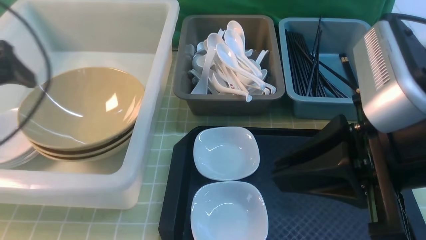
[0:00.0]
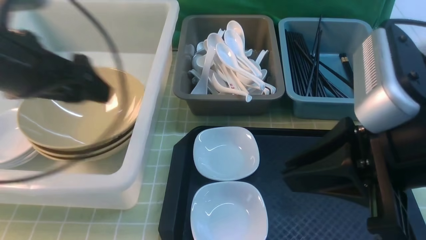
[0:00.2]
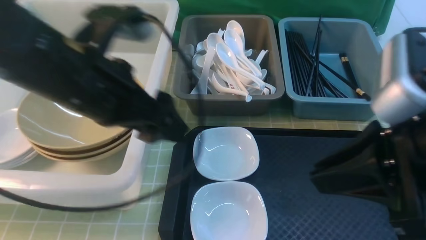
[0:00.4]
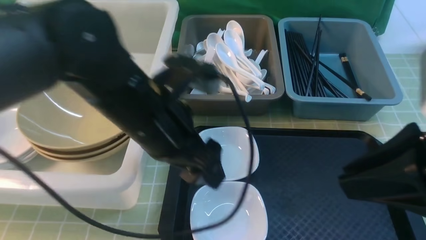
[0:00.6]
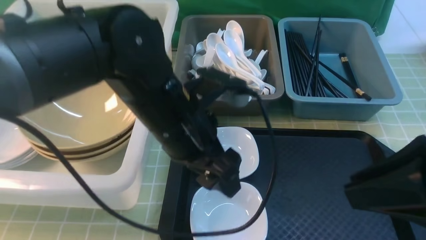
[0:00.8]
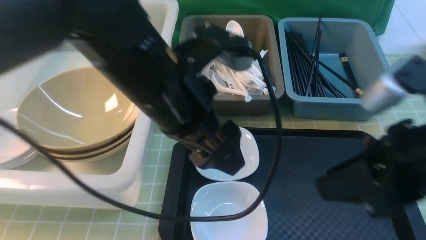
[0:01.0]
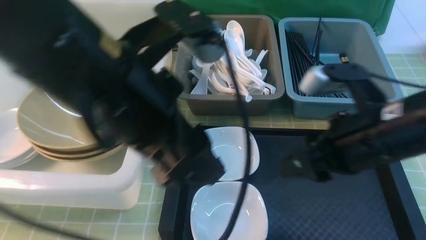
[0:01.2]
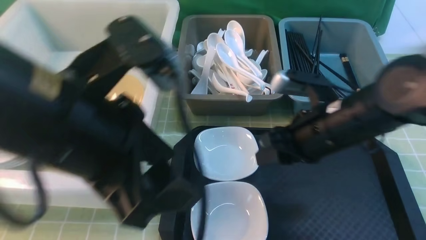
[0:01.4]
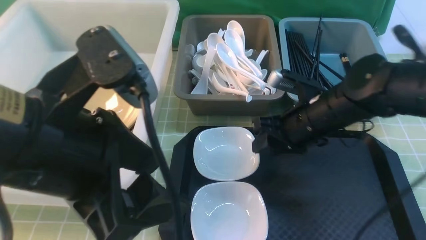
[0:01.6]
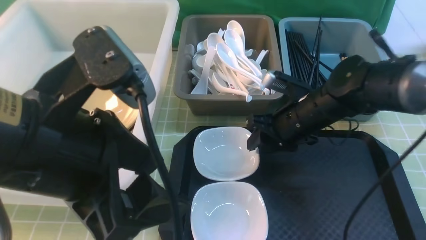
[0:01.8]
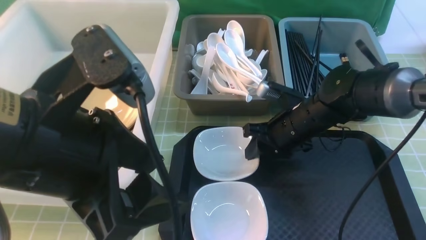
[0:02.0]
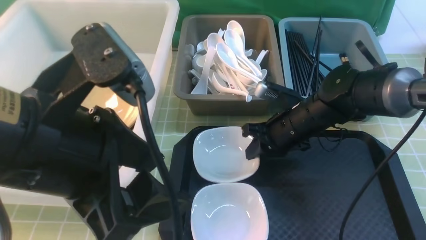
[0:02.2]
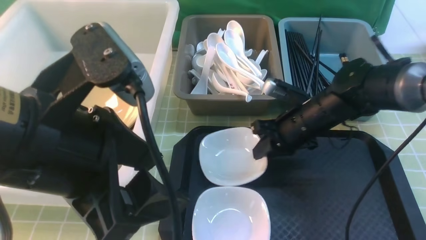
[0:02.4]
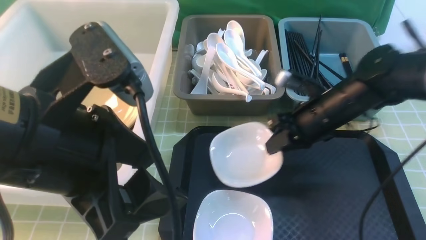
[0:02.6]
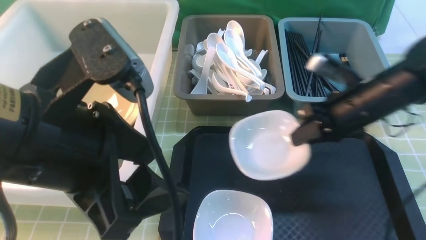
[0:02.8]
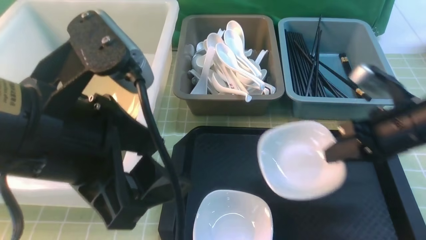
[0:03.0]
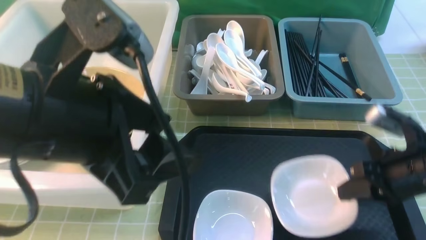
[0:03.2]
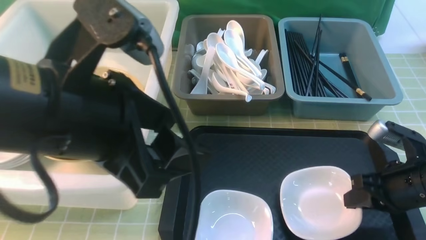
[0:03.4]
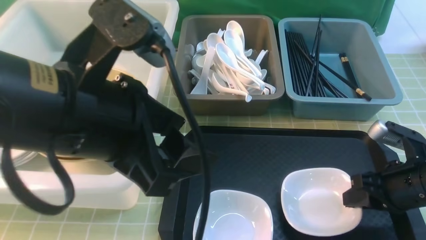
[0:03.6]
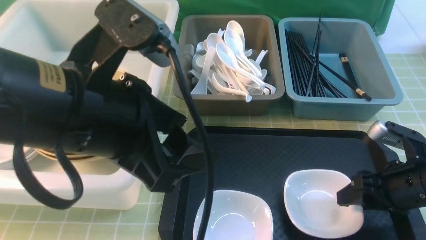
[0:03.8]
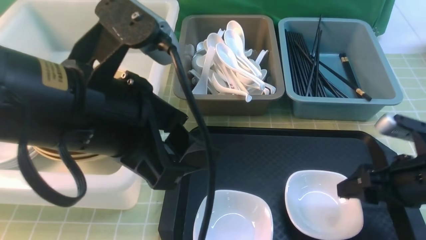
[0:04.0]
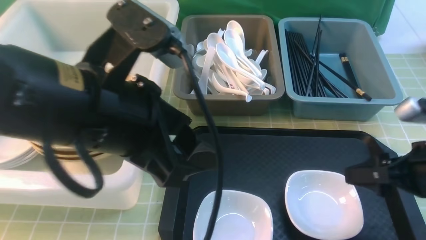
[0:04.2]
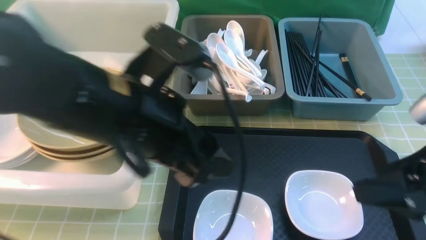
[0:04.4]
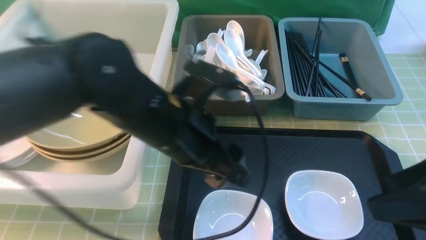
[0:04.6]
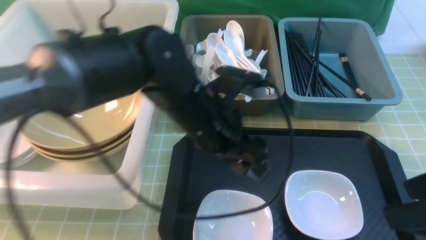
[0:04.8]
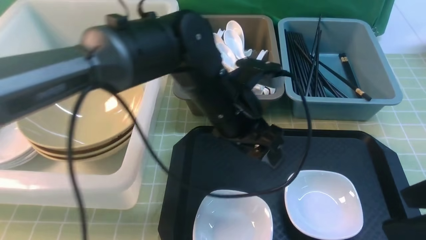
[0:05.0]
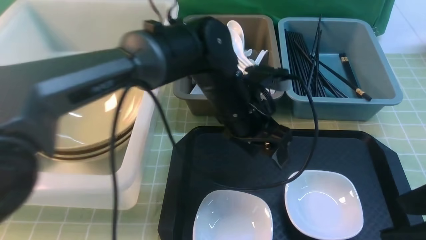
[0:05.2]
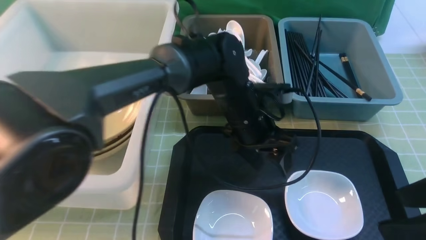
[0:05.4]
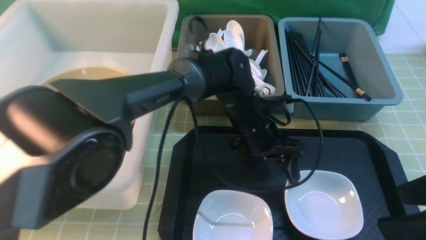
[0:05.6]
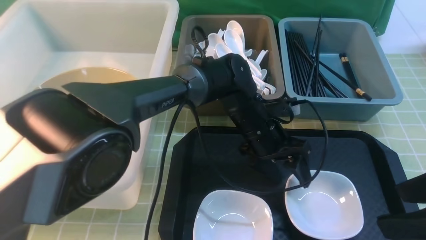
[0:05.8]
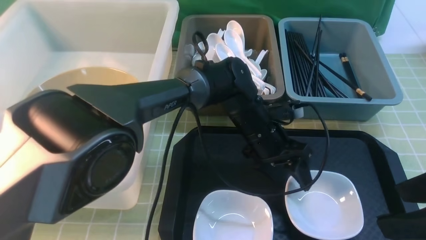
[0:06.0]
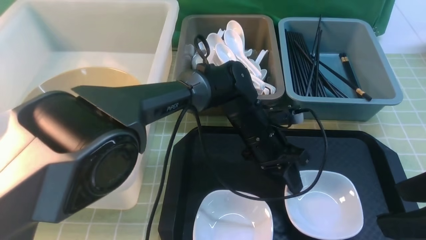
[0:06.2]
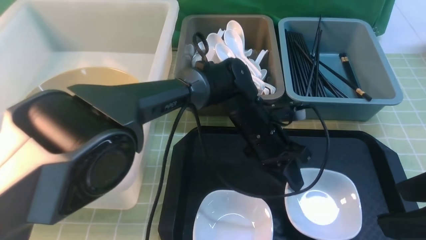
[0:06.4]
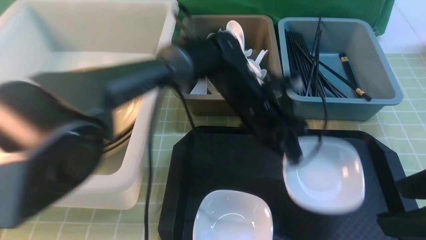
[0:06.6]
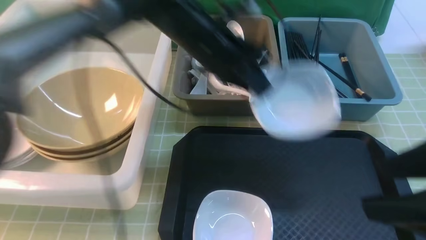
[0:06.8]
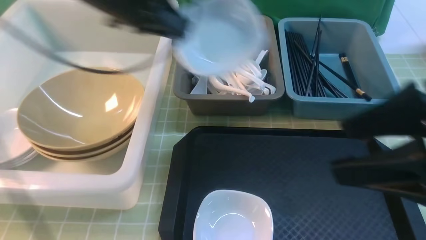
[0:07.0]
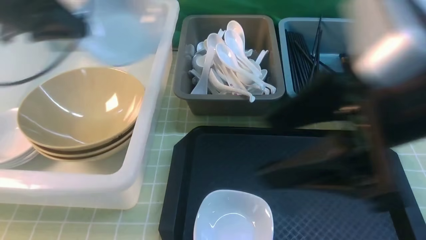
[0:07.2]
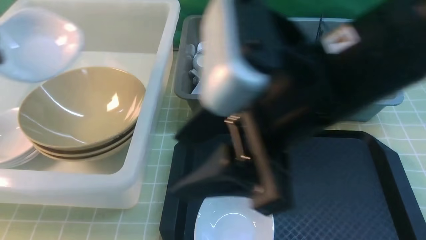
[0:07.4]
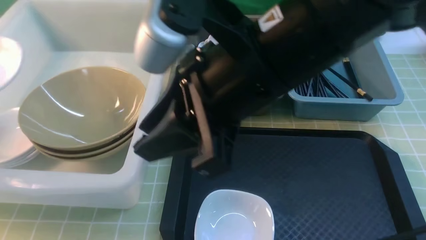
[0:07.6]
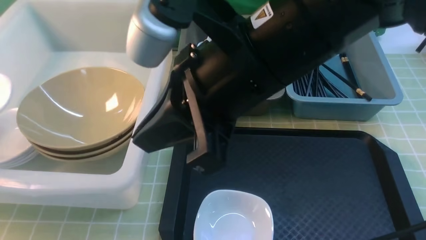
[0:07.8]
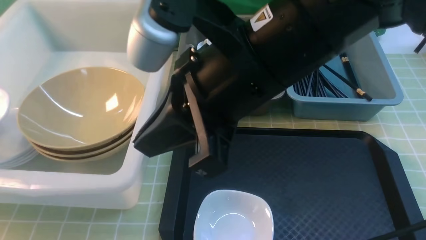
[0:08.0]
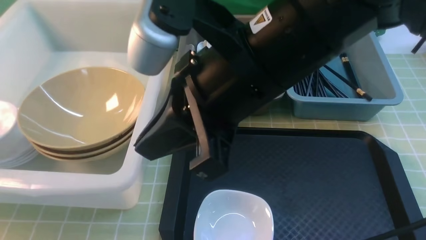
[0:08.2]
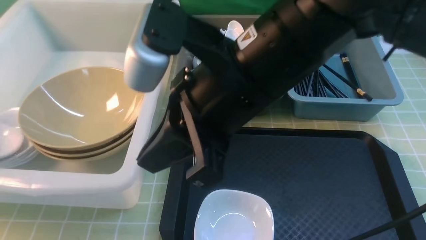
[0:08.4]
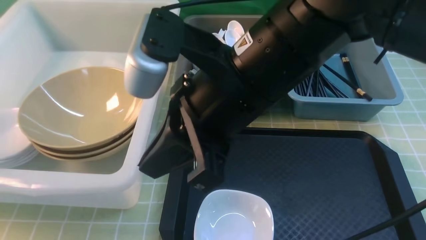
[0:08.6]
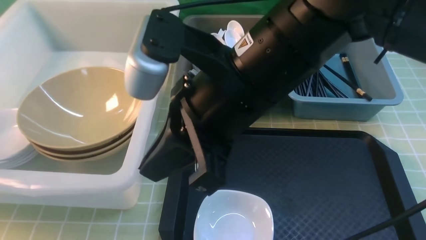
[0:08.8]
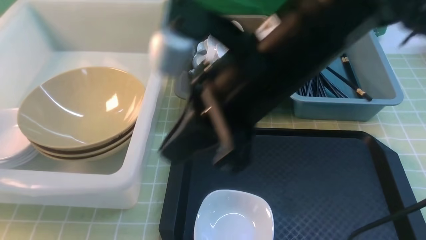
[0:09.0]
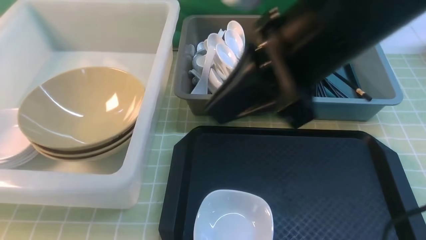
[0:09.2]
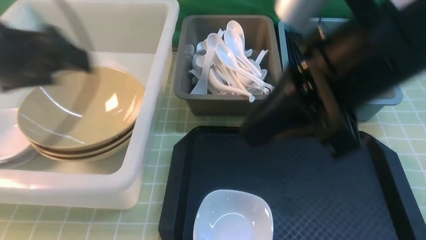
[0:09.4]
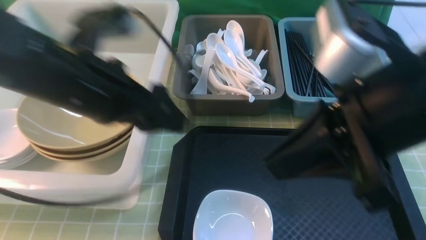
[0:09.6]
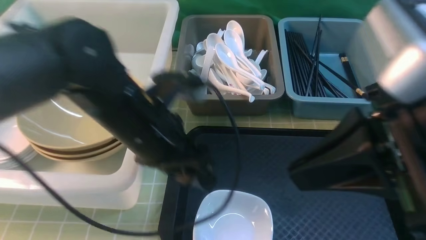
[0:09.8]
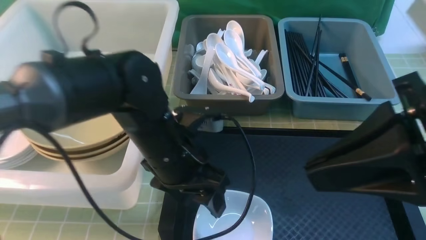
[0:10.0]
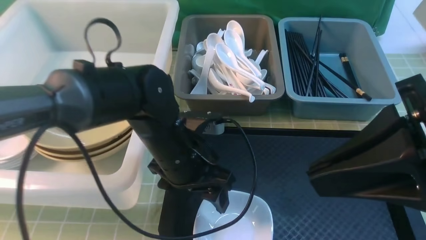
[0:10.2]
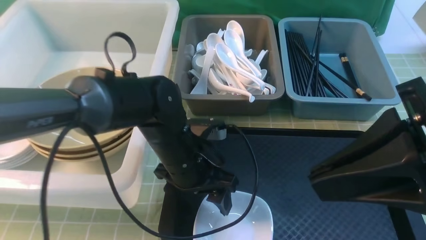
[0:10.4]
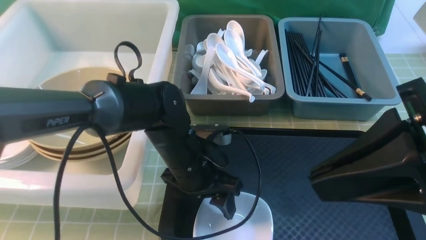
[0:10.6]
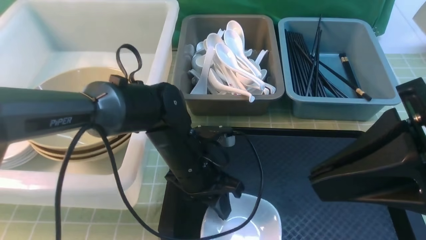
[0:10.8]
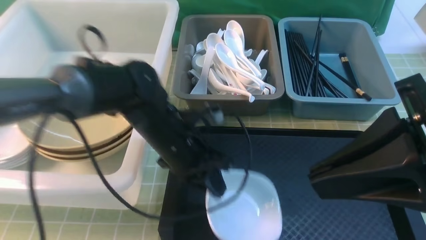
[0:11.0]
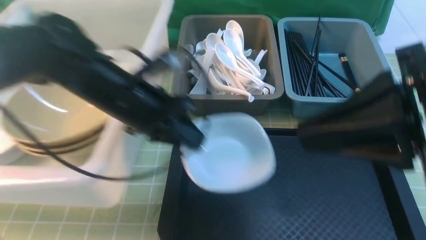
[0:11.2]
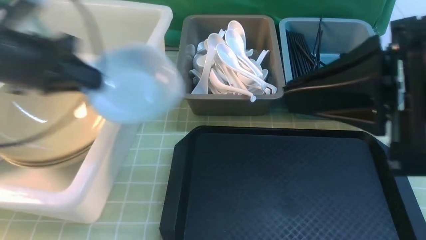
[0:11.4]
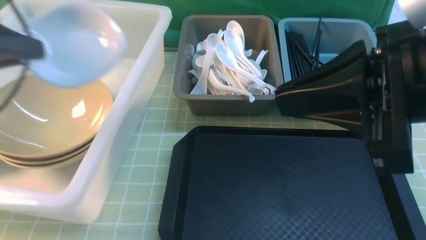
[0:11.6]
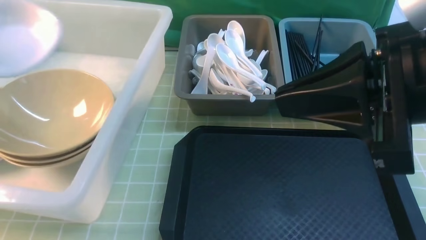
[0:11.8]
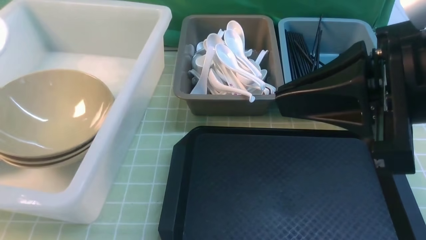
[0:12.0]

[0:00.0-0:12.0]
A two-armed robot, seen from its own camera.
Task of the whole recording: on green table put chopsticks spoon bowls plates into blue grey white boxes.
Step, 0:00.0 to 0:02.4: use the right arm to grab the plate.
Step, 0:02.8 to 0:04.0: use the right arm to put the plate on the tray.
Step, 0:04.2 to 0:06.4: use the left arm to grab the plate.
Step, 0:06.8 to 0:08.8: use the left arm to put the plate into the large storage box on the left.
Step, 0:09.0 to 0:10.8: use the left arm to grab the plate.
0:00.0 to 0:01.6: The left gripper heads to the right and backward, covering approximately 20 cm; the right gripper is displaced forward and downward by roughly 25 cm, and opens its fingers.
0:01.6 to 0:03.0: The right gripper shifts about 15 cm to the right and backward, and closes up.
0:03.0 to 0:04.4: The right gripper is displaced backward and upward by roughly 10 cm, and opens its fingers; the left gripper is displaced forward, downward and to the right by roughly 10 cm.
0:04.4 to 0:06.0: The left gripper moves downward, to the right and forward, roughly 25 cm; the right gripper shifts by about 5 cm.
0:06.0 to 0:07.6: The left gripper travels to the left by some 50 cm, and closes. The right gripper shifts roughly 20 cm to the left, and closes up.
0:07.6 to 0:09.0: The left gripper opens. The right gripper closes up.
0:09.0 to 0:10.4: The left gripper moves to the right, some 35 cm. The right gripper shifts about 15 cm to the right and backward.
0:10.4 to 0:12.0: The left gripper moves to the left and upward, about 40 cm, and closes.

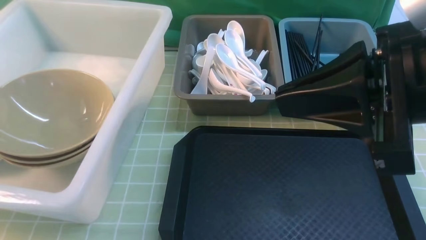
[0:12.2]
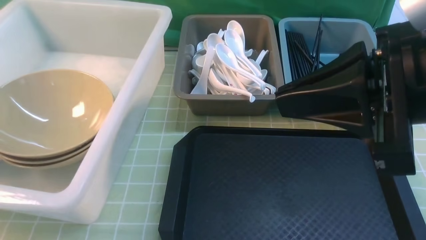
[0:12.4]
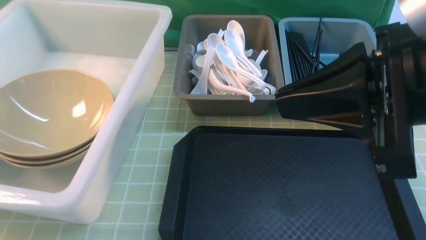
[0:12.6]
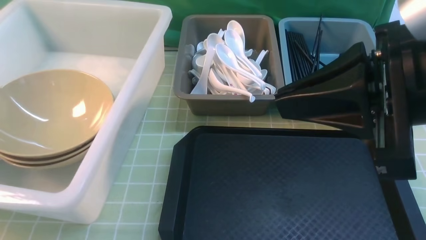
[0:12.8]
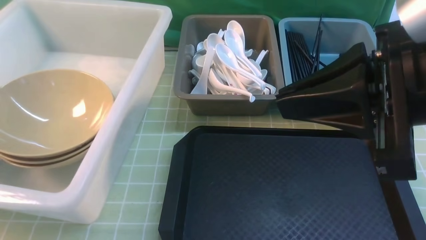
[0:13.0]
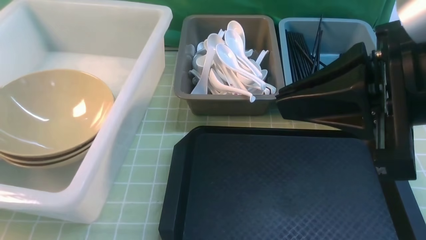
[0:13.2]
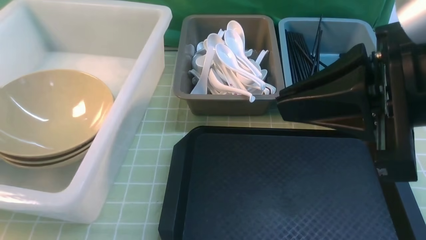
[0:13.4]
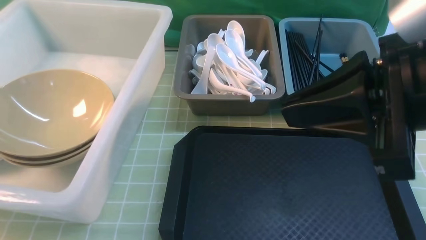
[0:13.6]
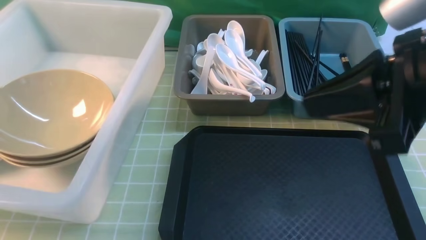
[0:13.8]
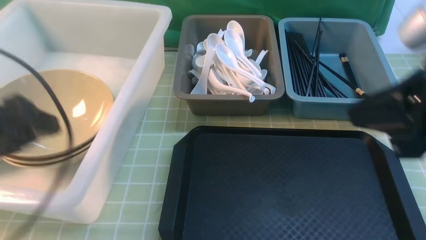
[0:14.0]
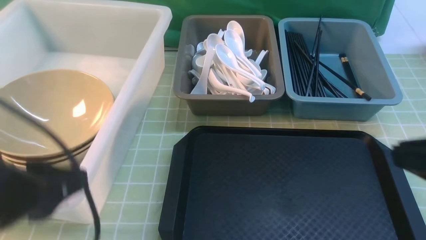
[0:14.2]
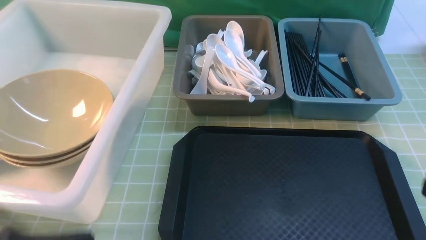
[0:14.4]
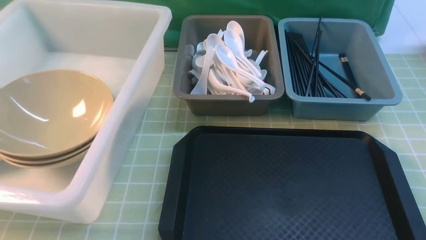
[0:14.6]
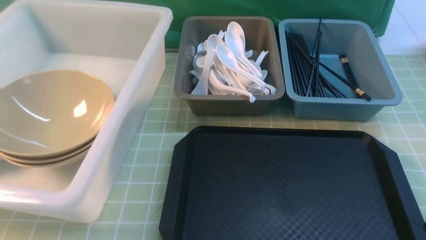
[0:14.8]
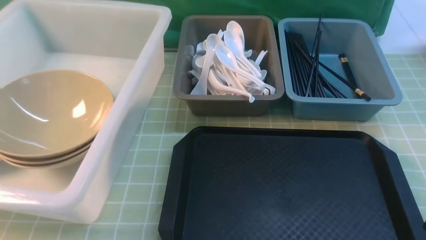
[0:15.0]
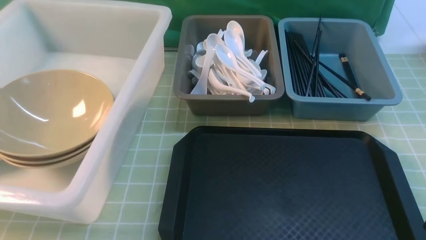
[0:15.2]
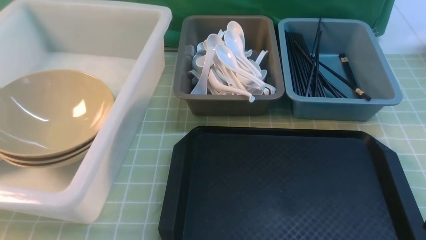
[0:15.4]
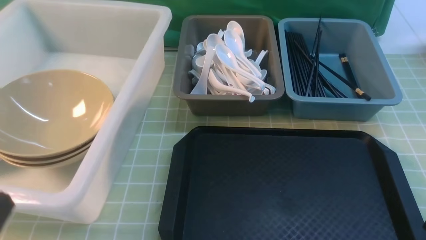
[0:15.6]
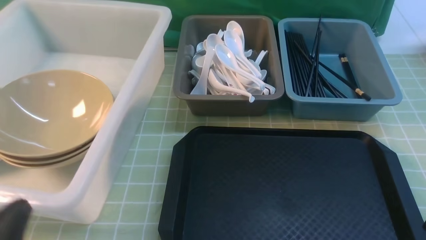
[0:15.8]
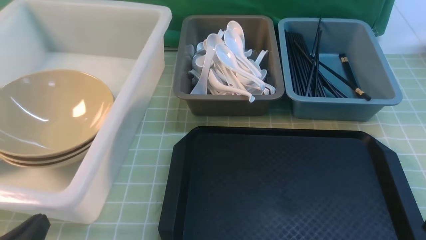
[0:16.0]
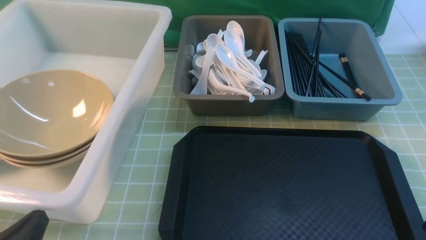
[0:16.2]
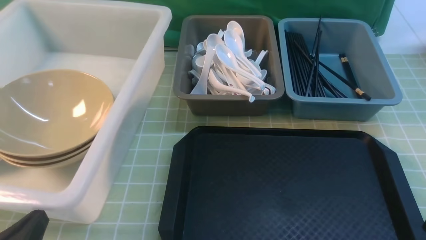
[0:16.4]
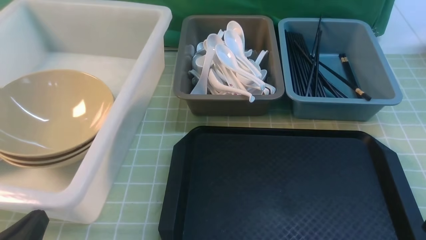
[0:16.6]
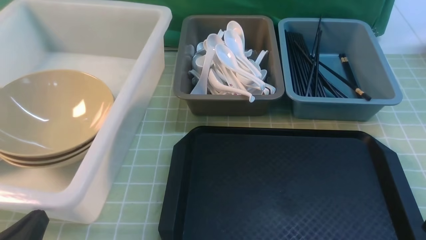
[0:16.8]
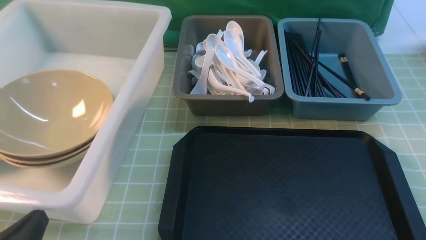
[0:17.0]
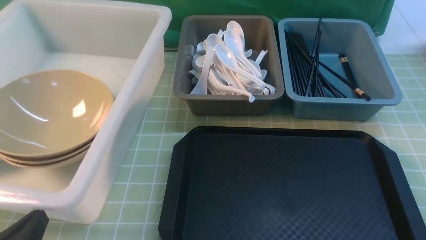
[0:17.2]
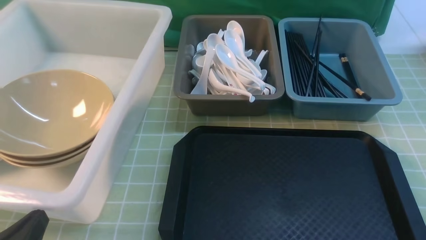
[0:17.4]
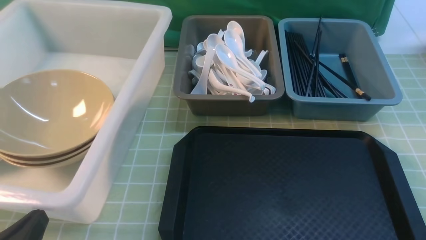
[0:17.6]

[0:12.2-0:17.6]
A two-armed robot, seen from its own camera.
Task of the whole recording: on green table put chopsticks spoon bowls plates into blue grey white boxes.
Step, 0:12.2 to 0:14.0: use the left arm to put the plate into the large storage box on the left.
0:12.2 to 0:13.6: The left gripper heads to the right, covering some 5 cm, and opens up.
0:13.6 to 0:15.0: The left gripper moves backward and to the right, roughly 35 cm, and closes, while the right gripper goes approximately 25 cm downward, backward and to the right.
0:15.0 to 0:16.2: The left gripper heads downward and forward, covering approximately 15 cm.
